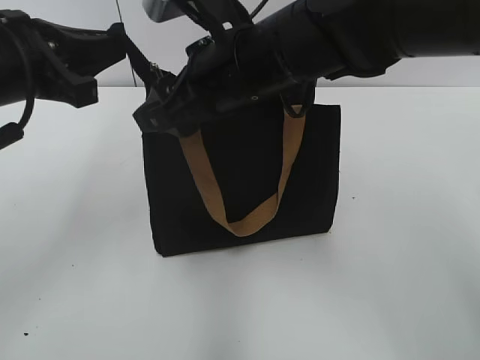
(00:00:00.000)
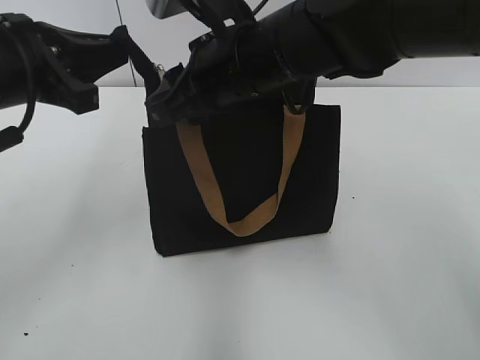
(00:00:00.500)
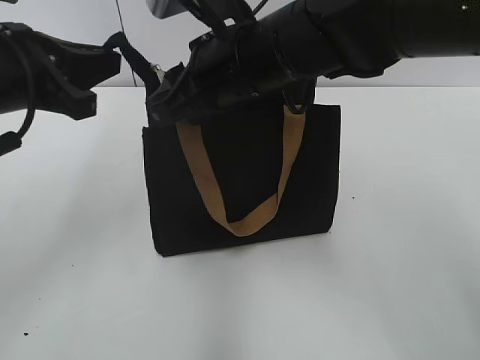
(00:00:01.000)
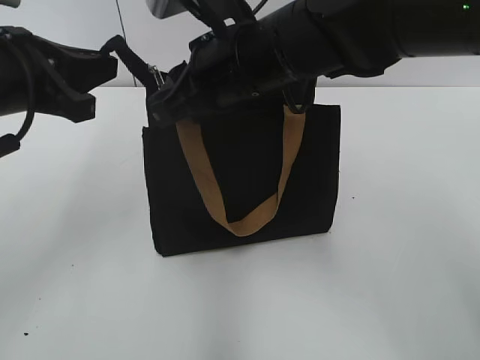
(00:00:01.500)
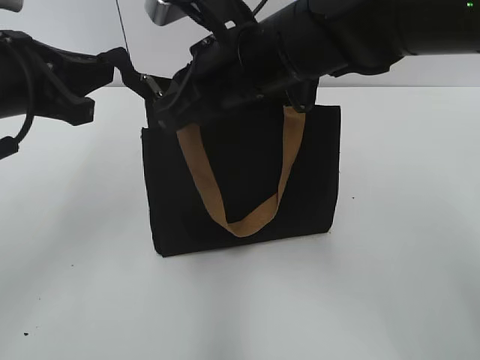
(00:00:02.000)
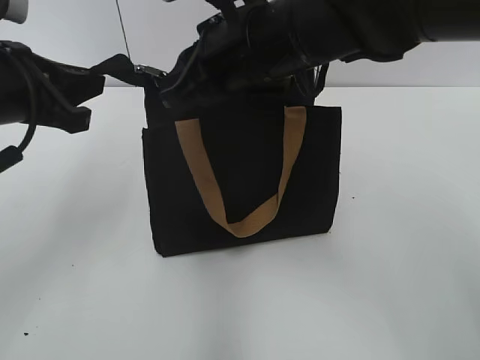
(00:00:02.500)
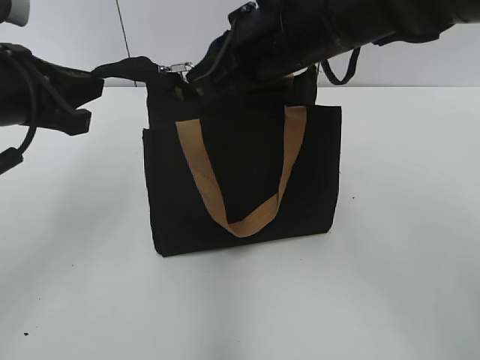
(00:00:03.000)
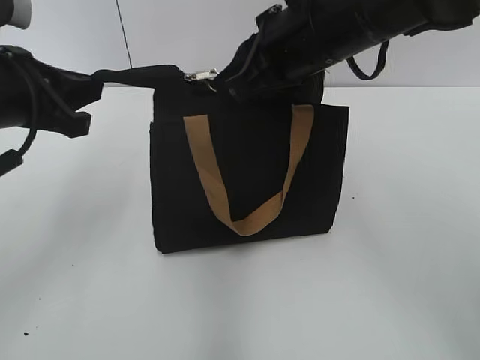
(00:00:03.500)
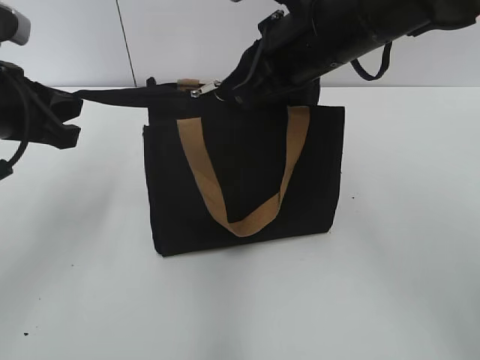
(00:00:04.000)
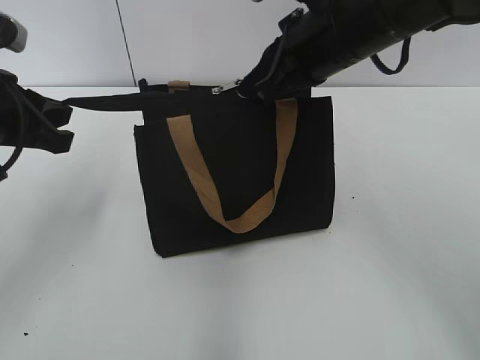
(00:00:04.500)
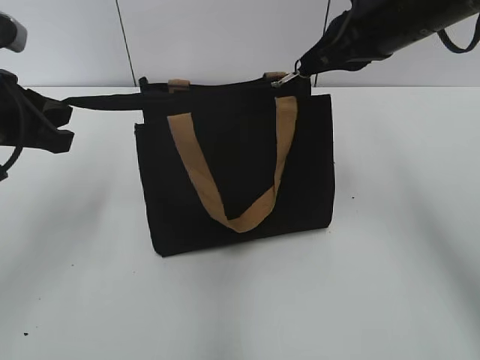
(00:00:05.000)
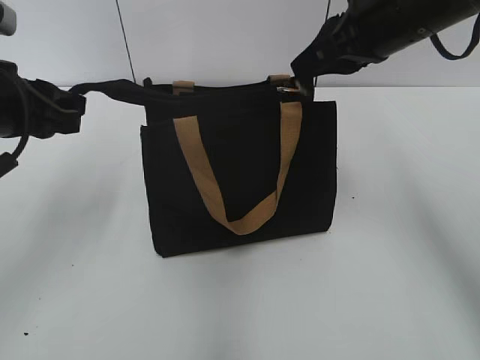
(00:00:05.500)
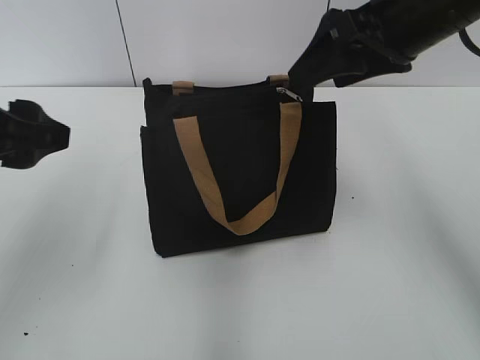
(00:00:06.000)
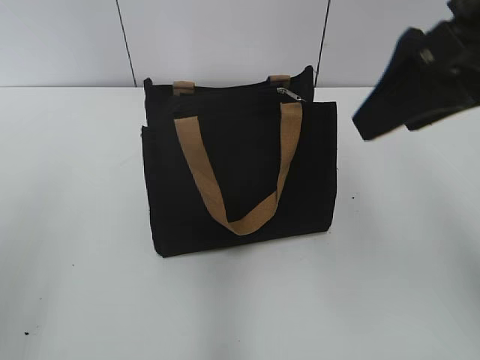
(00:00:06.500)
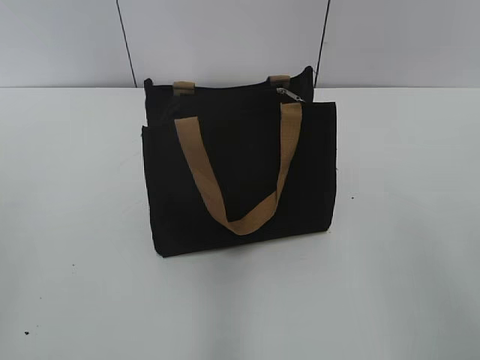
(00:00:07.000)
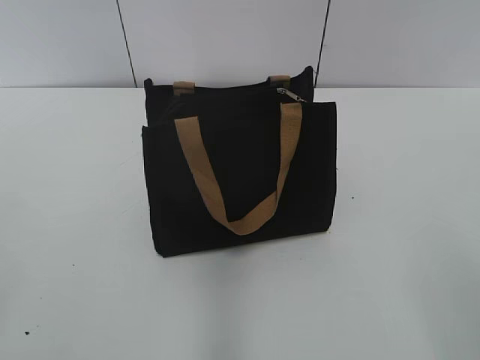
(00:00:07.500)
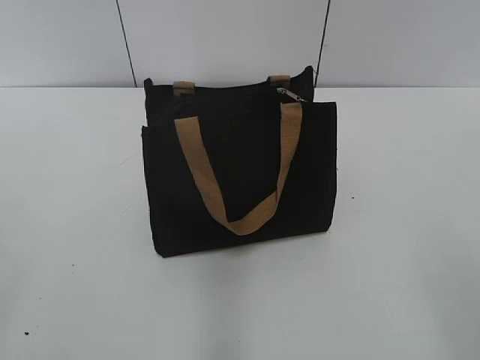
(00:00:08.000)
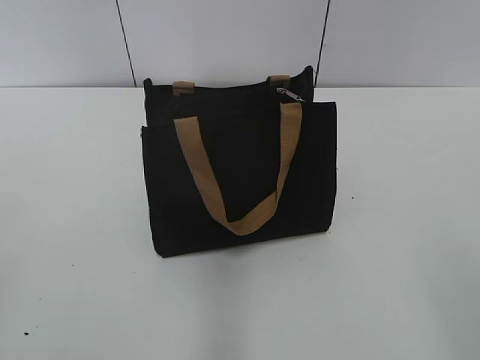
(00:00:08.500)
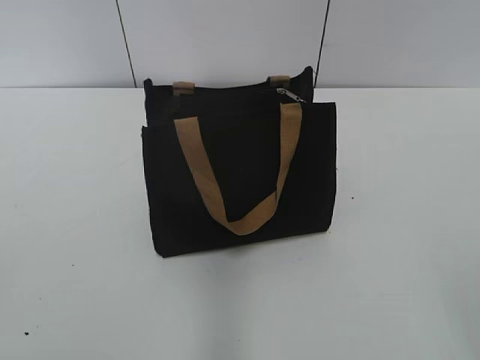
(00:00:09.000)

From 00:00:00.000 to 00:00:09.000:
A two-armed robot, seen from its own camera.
Step, from 00:00:00.000 to 00:00:05.500: Zip up the bag with your right hand.
From 00:00:00.000 to 00:00:02.000: The right gripper closes up.
From 00:00:02.000 to 00:00:04.500: The right gripper heads to the right, covering roughly 10 cm.
From 00:00:04.500 to 00:00:07.000: The left gripper is displaced backward by roughly 20 cm, and opens its fingers, while the right gripper is displaced backward and to the right by roughly 30 cm, and opens.

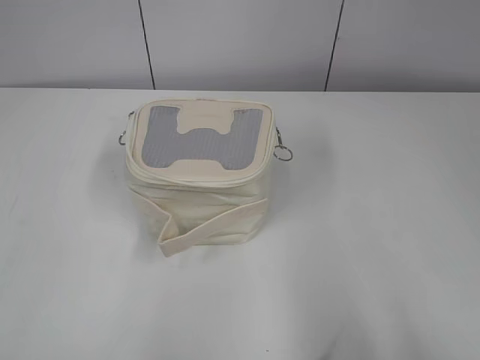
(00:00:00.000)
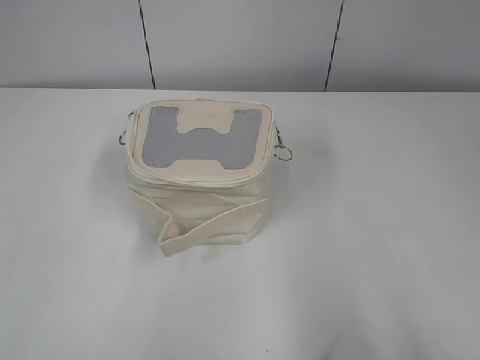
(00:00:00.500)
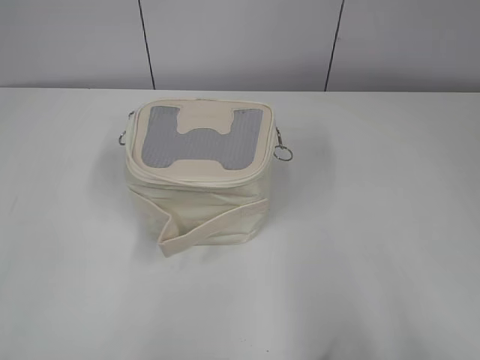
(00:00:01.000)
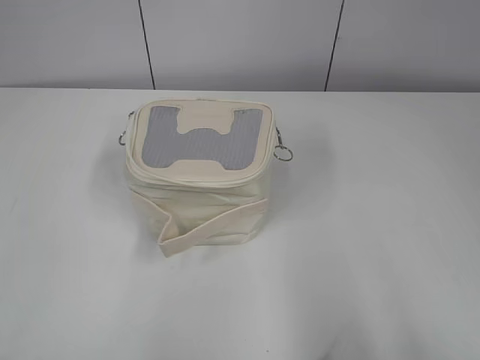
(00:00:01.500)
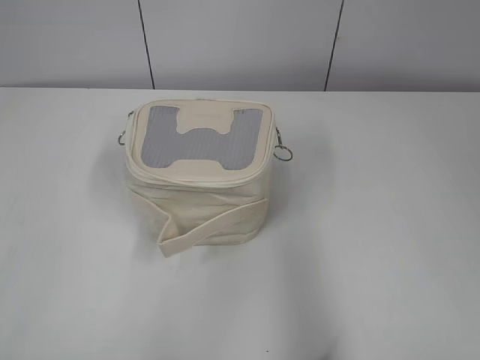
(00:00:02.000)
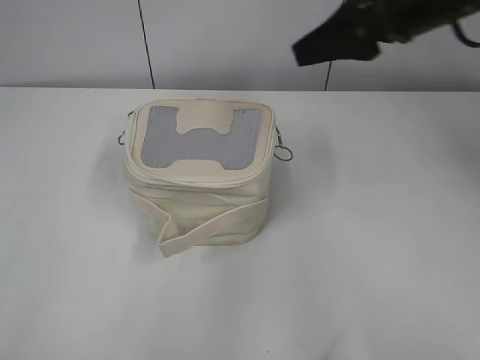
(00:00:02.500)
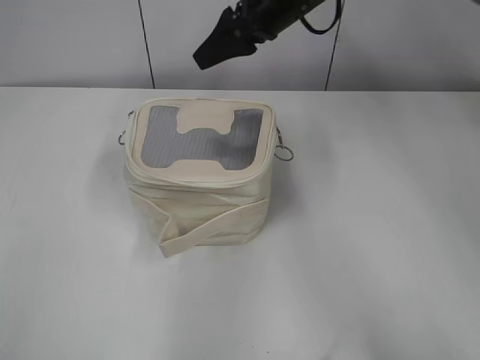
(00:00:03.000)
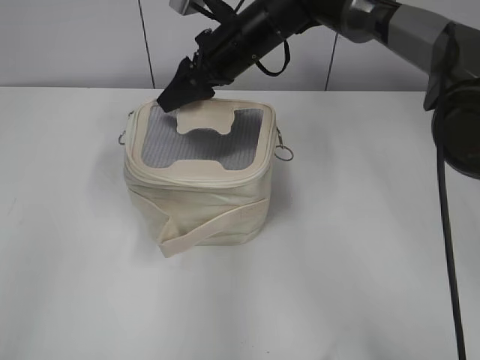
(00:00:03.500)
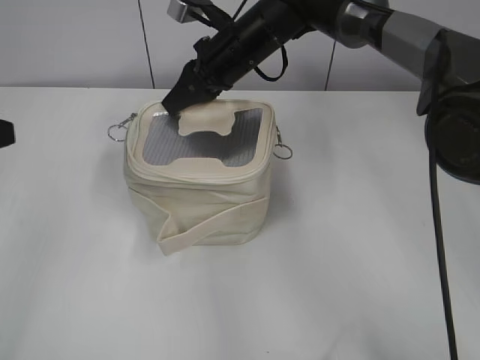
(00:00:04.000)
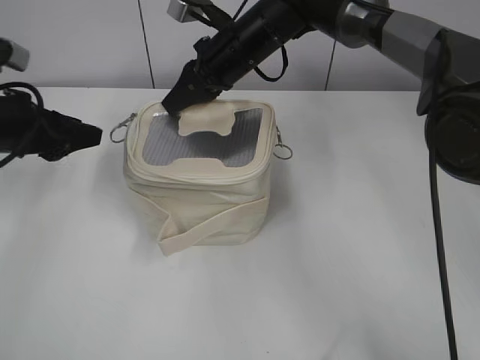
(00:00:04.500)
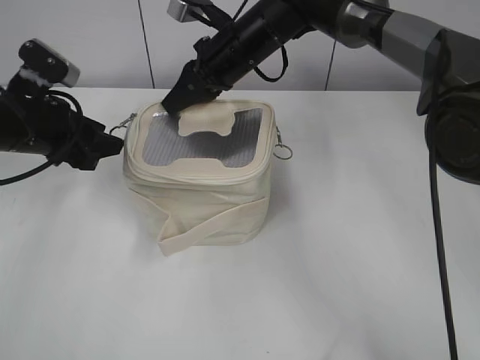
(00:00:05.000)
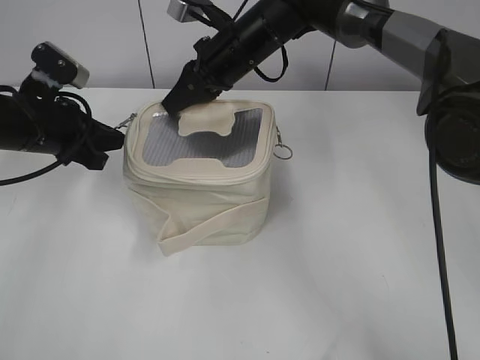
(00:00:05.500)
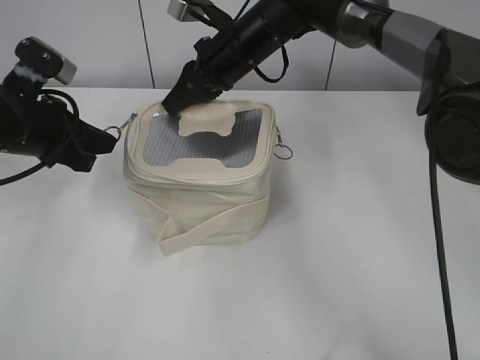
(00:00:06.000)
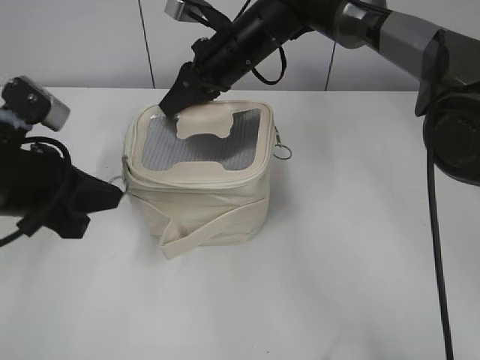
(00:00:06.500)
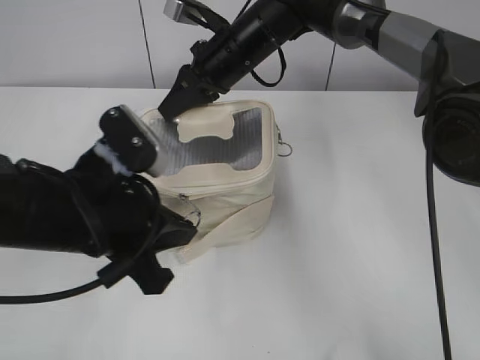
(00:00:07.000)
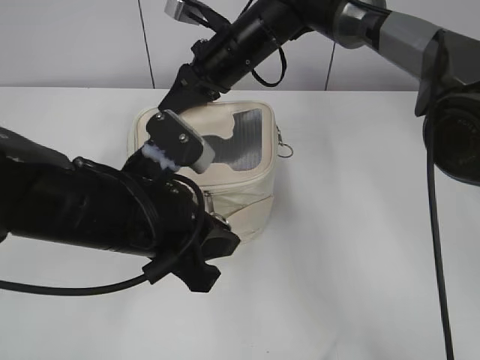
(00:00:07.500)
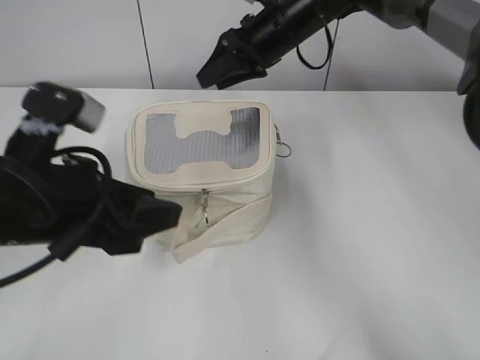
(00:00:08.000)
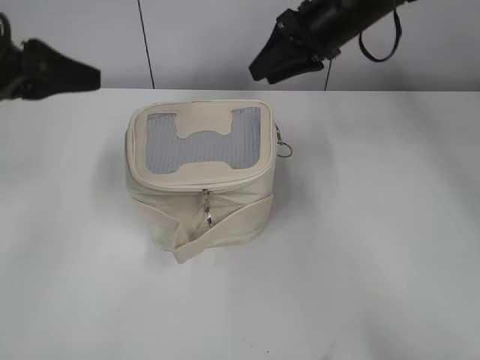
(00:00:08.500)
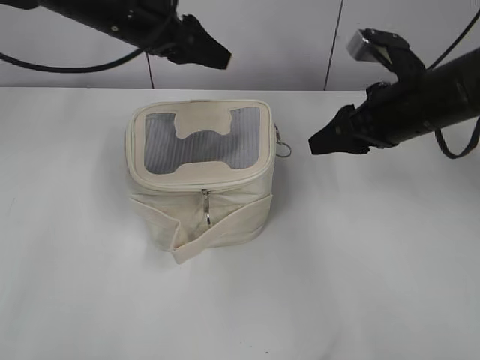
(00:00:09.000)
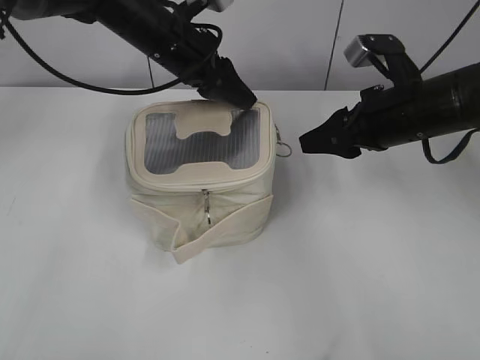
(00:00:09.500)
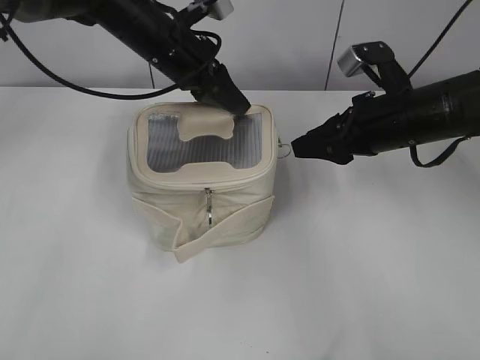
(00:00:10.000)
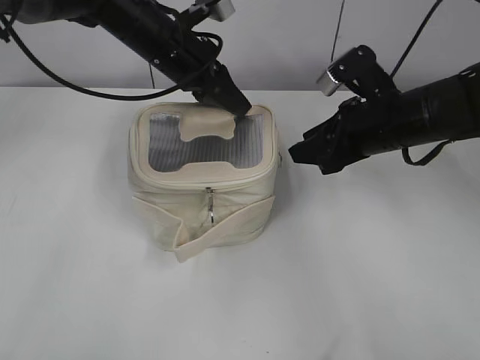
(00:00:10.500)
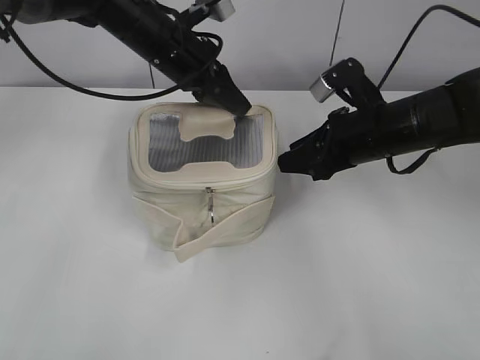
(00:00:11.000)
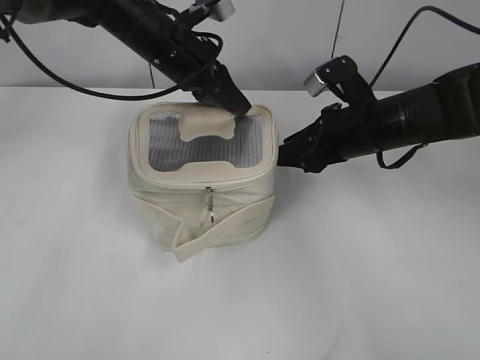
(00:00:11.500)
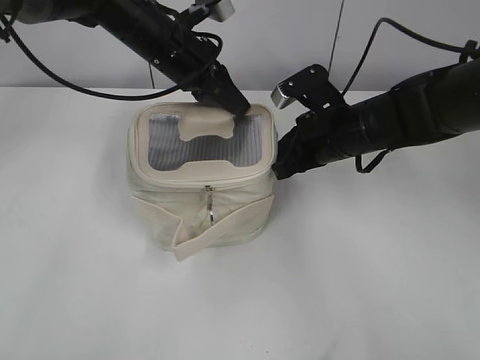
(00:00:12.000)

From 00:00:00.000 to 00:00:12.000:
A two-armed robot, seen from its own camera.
Step, from 00:00:00.000 to 00:00:07.000: Zip up the bag with your left hand.
From 00:00:02.000 to 00:00:04.000: The right gripper goes about 50 cm forward and to the left, and closes up, while the left gripper shifts about 20 cm forward.
From 00:00:04.000 to 00:00:06.000: The left gripper is displaced forward, downward and to the right by roughly 15 cm, and closes up.
From 00:00:06.000 to 00:00:08.000: The right gripper travels to the right by some 5 cm, and opens its fingers, while the left gripper travels backward and to the right by about 15 cm, and opens its fingers.
From 00:00:08.000 to 00:00:10.000: The left gripper travels forward by some 25 cm, and closes up. Meanwhile the right gripper moves backward and to the right, approximately 20 cm.
From 00:00:10.000 to 00:00:12.000: The right gripper moves to the left, about 5 cm, and closes.

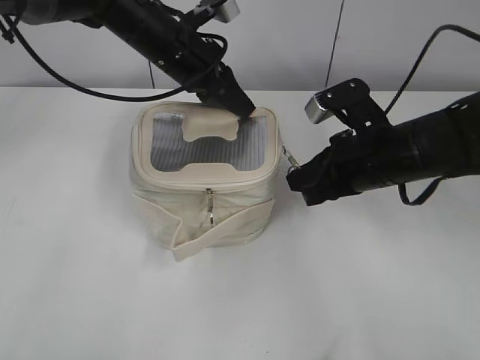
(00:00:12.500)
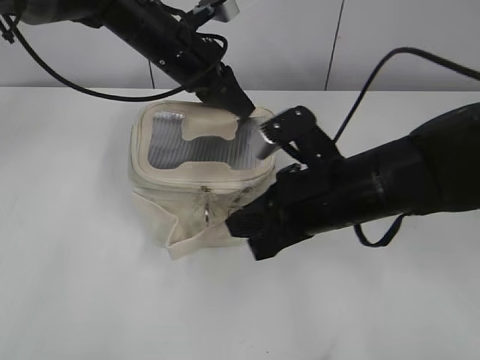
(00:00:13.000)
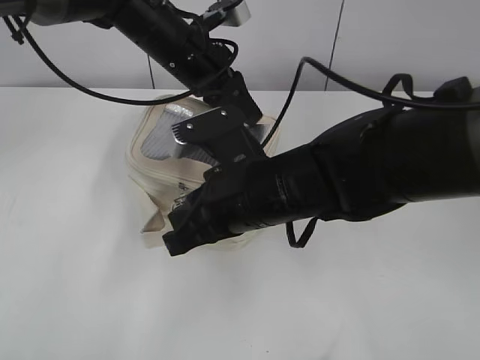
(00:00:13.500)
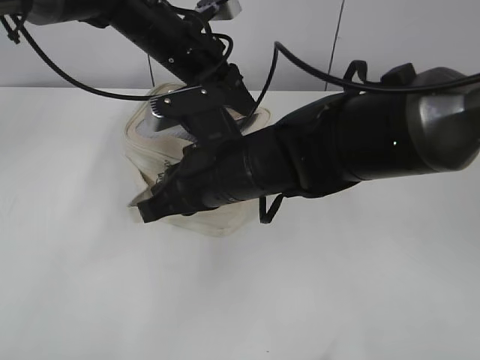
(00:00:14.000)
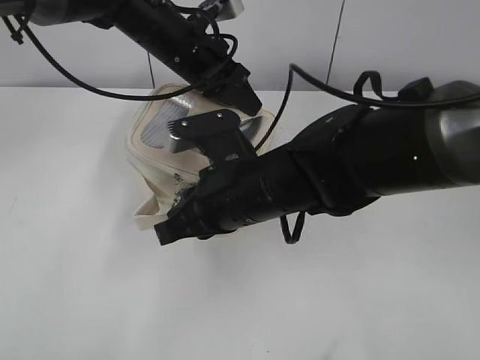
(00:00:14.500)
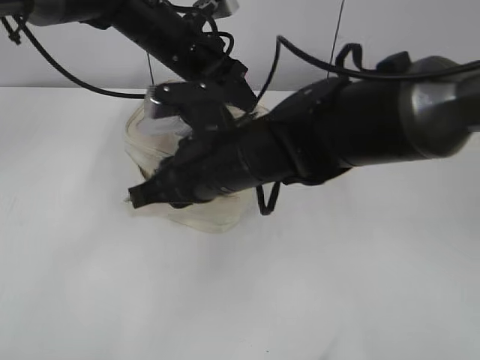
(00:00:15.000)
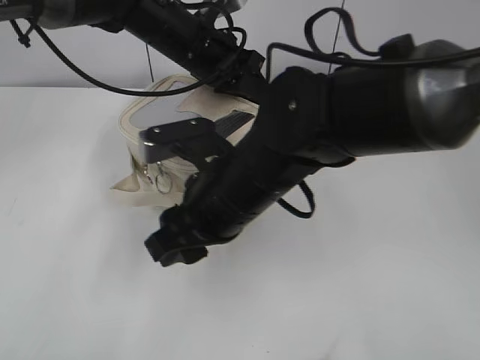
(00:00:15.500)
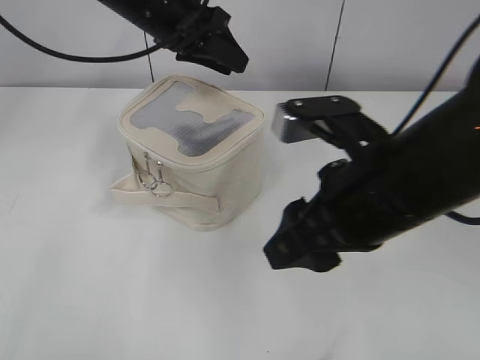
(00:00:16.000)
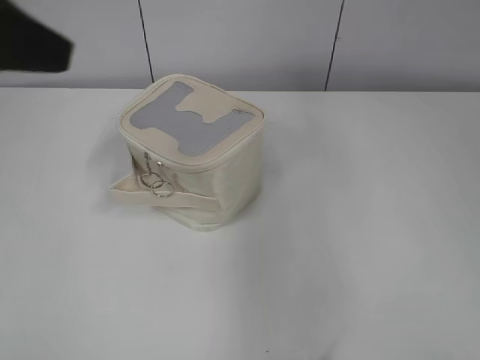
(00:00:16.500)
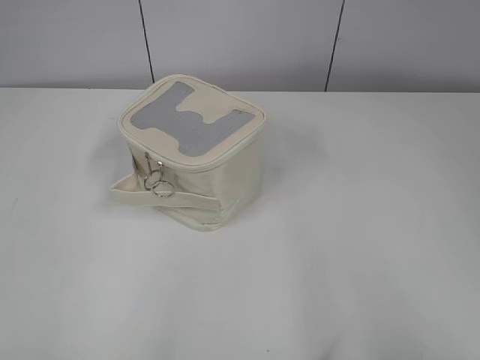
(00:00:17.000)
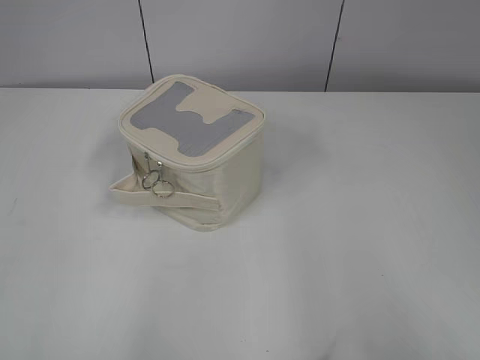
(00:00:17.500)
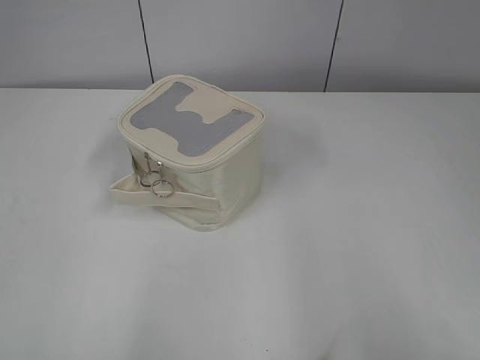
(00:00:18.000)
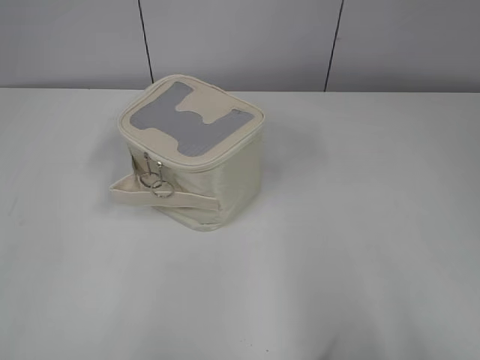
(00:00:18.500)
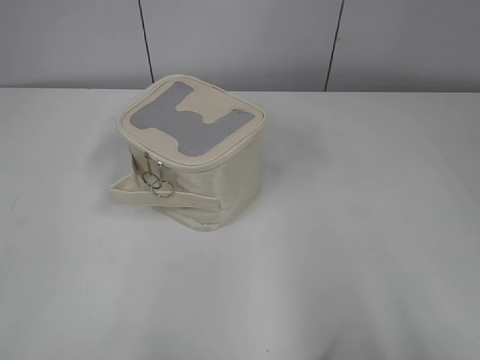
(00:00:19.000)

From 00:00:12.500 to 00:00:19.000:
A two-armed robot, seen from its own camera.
Step, from 00:00:12.500 to 00:00:15.000: Zip up the bag with your right hand.
From 00:00:12.500 to 00:00:14.500: The right gripper travels to the left by approximately 15 cm.
From 00:00:14.500 to 00:00:17.000: The right gripper moves to the right, backward and upward, some 40 cm, and opens its fingers. The left gripper moves backward and to the left, roughly 50 cm, and opens up.
